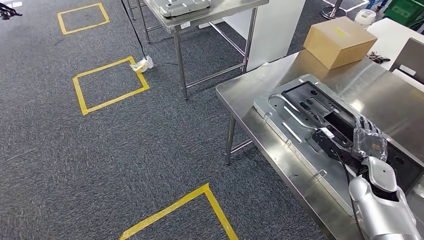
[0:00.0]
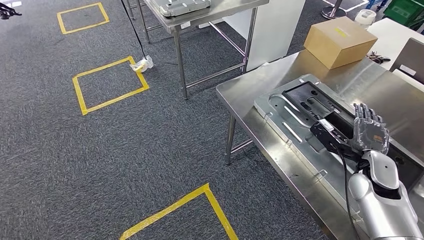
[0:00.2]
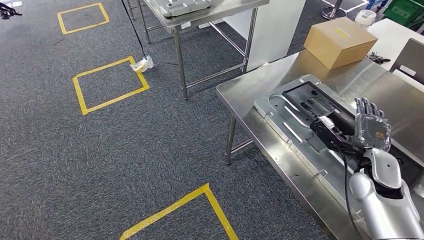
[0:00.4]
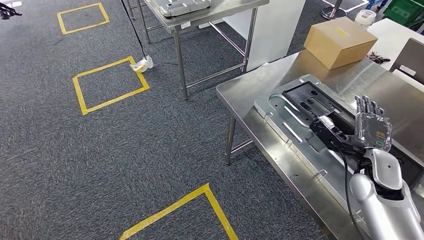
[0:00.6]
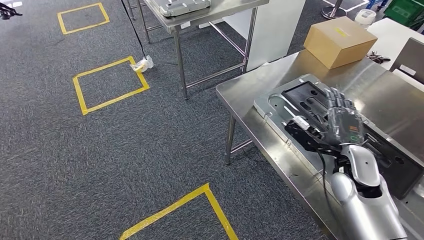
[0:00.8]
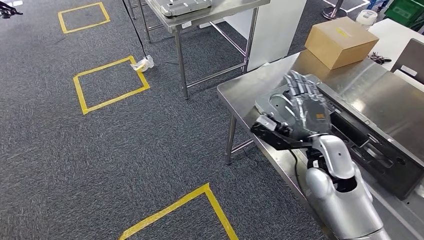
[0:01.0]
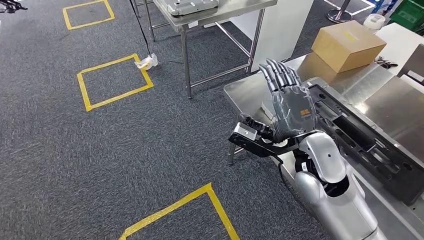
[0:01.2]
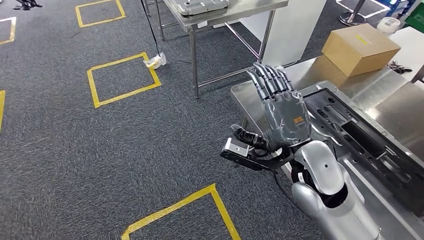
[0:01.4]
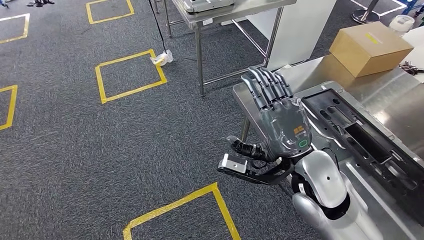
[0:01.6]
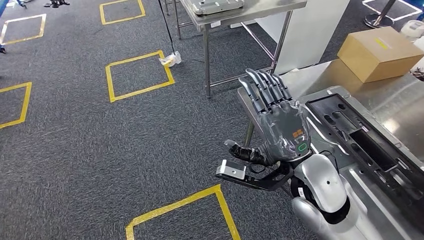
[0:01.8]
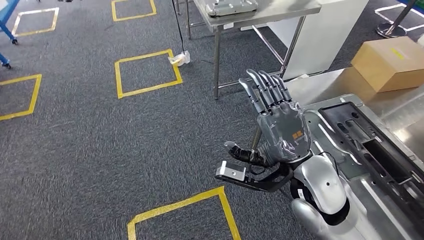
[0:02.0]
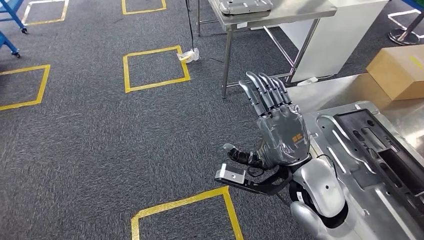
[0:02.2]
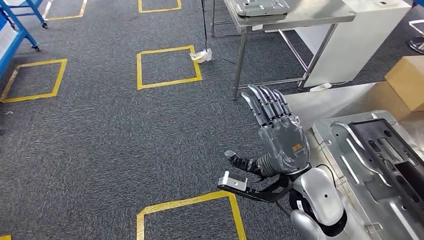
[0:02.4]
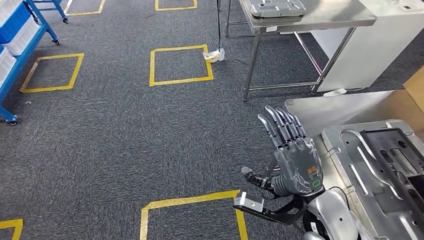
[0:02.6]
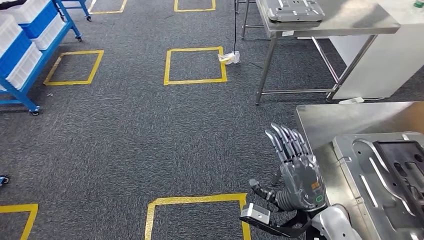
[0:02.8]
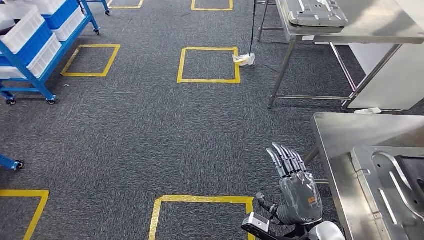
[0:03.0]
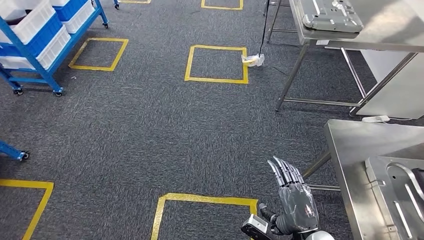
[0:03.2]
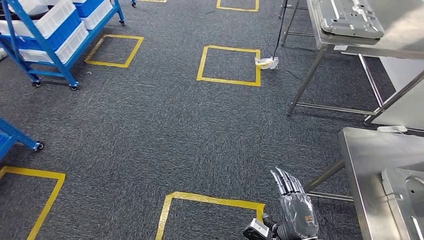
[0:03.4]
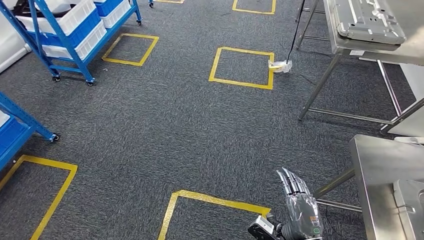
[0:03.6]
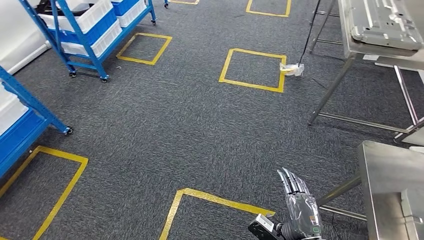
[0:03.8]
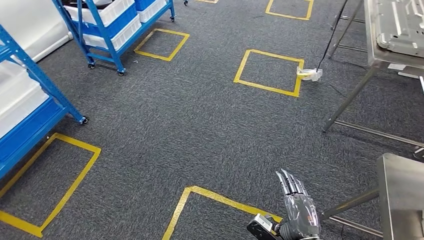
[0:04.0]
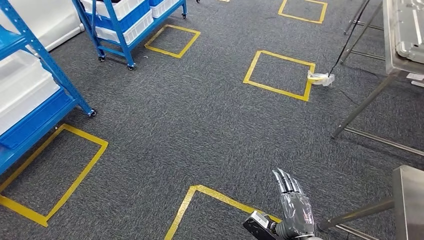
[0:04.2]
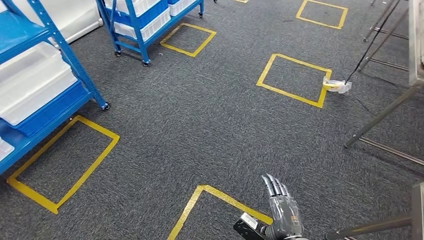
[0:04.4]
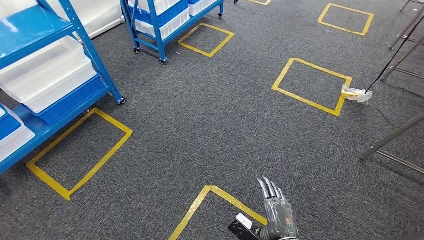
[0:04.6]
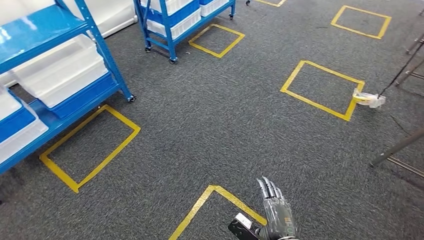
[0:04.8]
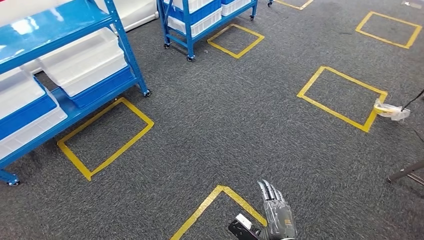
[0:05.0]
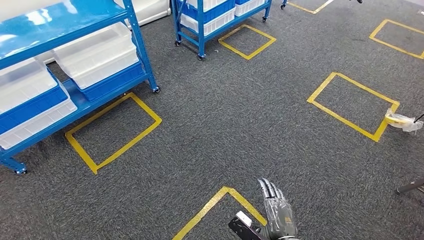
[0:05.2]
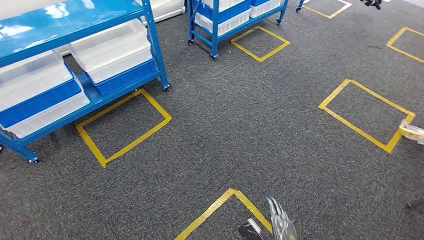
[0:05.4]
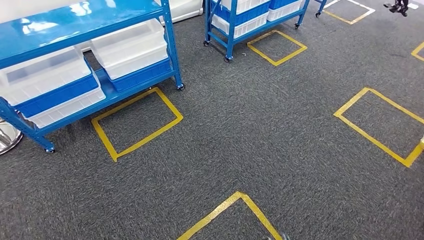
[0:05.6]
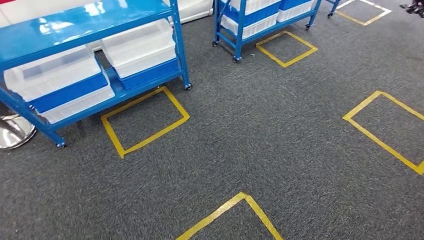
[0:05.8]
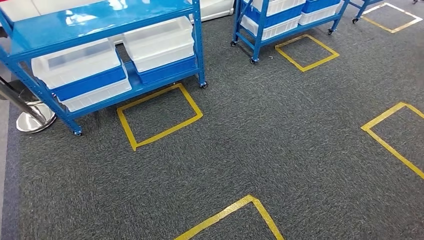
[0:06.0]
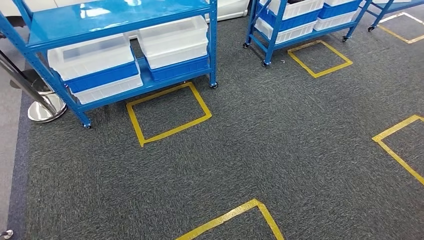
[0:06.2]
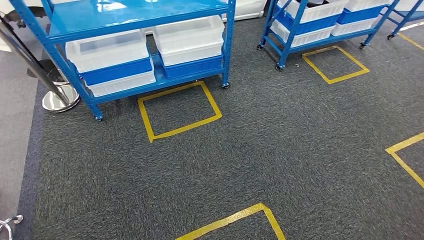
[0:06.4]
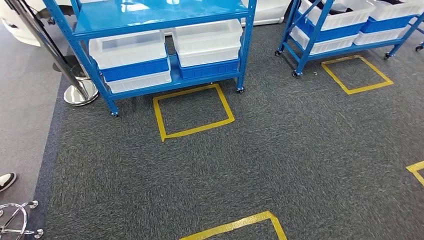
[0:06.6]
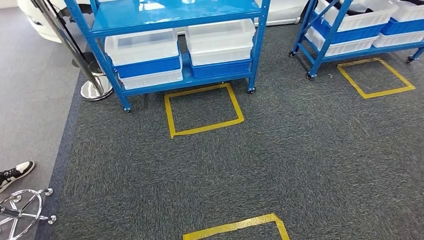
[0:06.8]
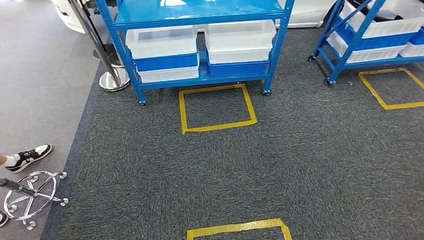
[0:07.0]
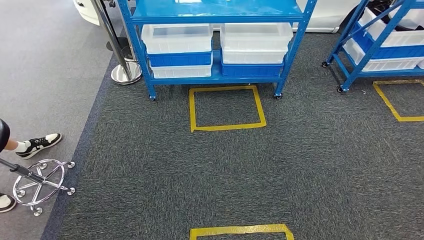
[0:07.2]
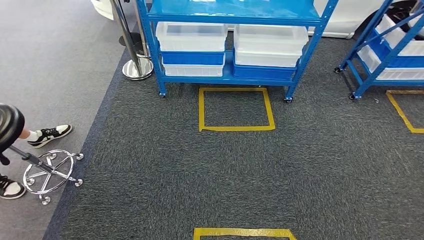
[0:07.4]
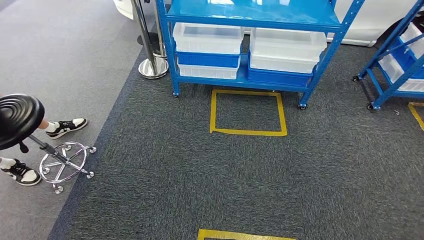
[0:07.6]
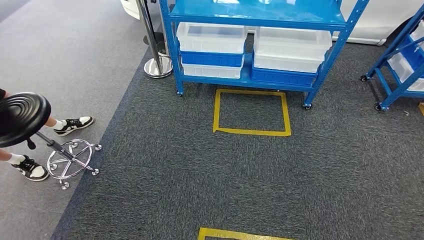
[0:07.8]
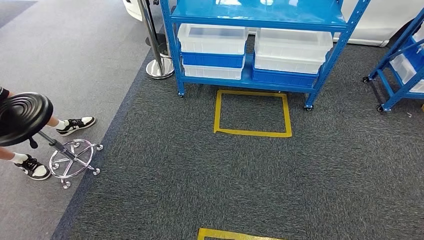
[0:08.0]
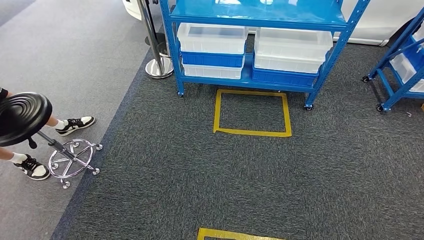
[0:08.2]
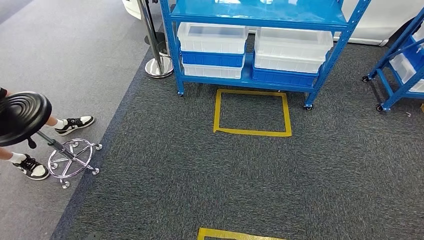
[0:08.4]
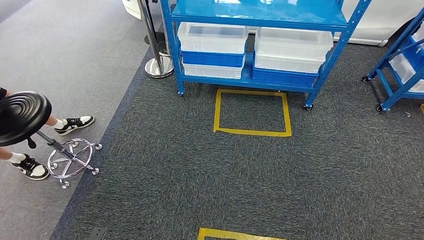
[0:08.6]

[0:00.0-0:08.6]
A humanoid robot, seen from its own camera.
Step, 0:00.0 to 0:03.2: Insert the large material into the corresponding slot on the workbench.
Step, 0:03.4 to 0:08.6: Move to the initial position of the shelf.
